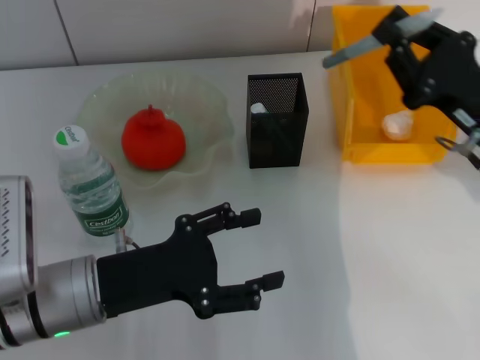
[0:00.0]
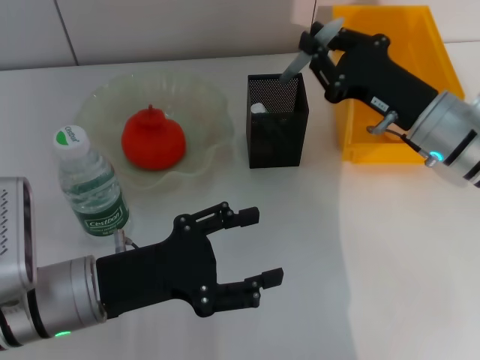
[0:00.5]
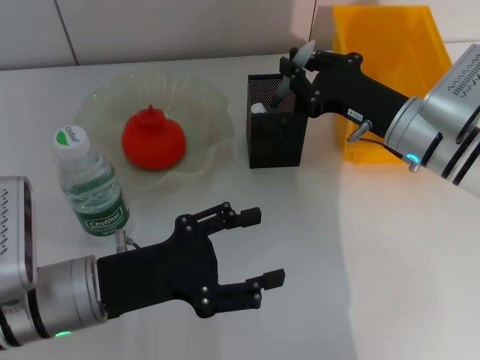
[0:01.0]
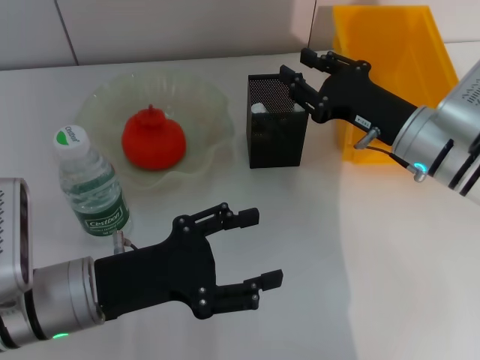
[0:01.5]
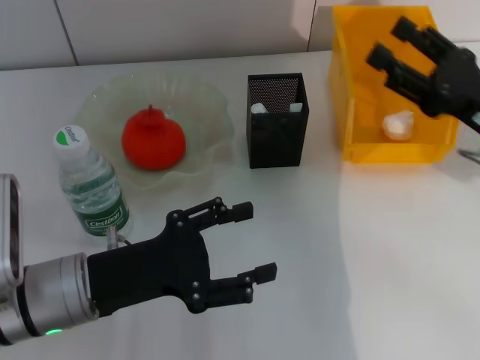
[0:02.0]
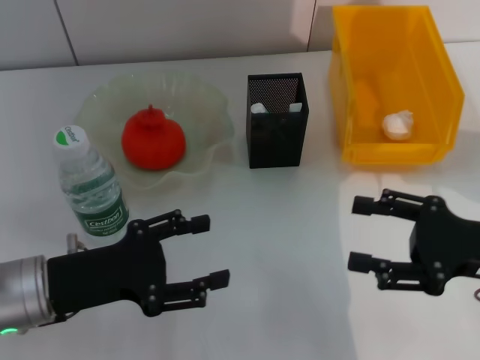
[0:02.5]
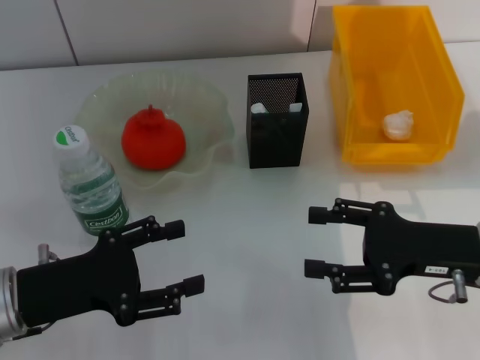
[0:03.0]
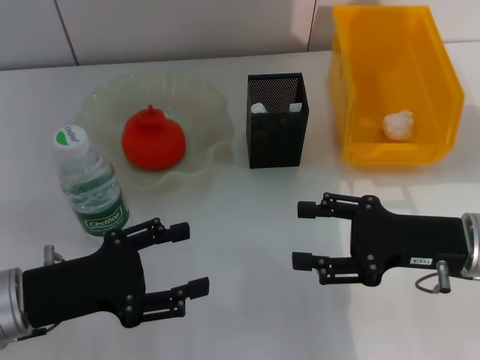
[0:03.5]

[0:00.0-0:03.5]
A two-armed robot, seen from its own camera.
0:00.0 to 0:02.0: The right gripper moves some 5 cm to the left and comes back, and opens.
0:02.0 to 0:03.5: The right gripper ends up roughly 5 cm from where it was; the left gripper is displaced to the left by some 5 cm.

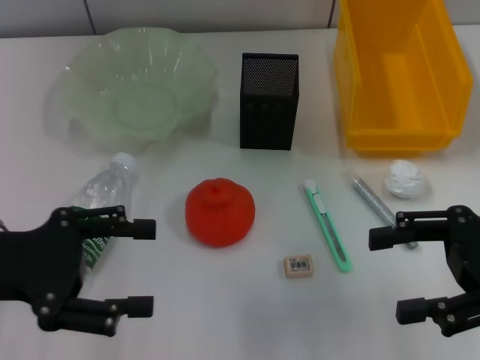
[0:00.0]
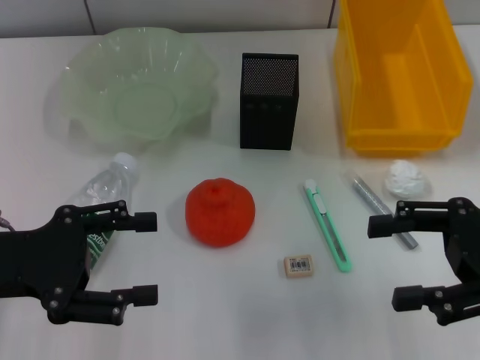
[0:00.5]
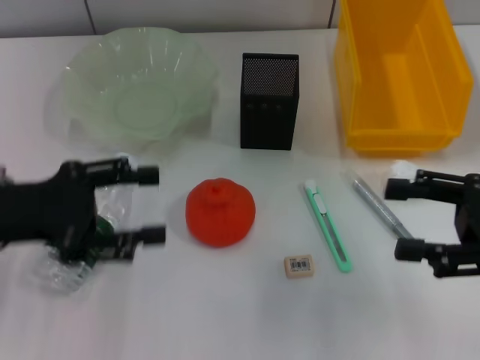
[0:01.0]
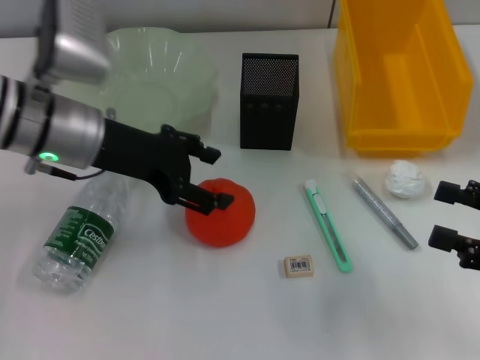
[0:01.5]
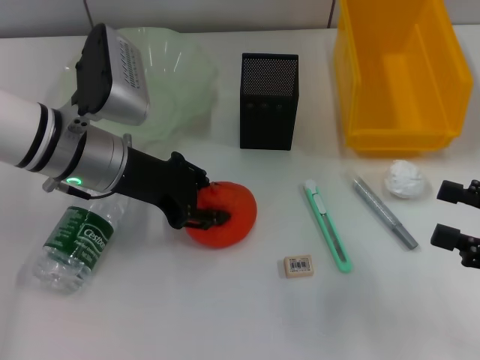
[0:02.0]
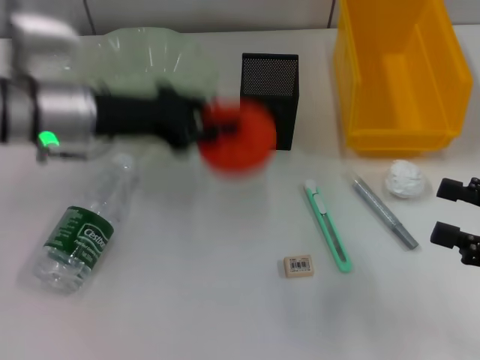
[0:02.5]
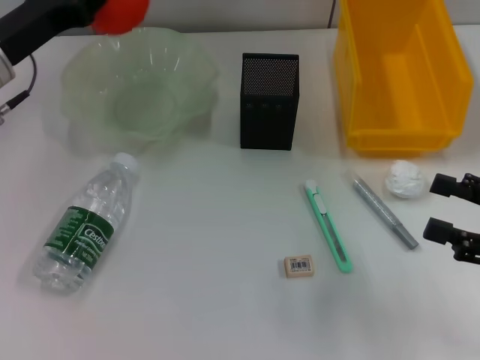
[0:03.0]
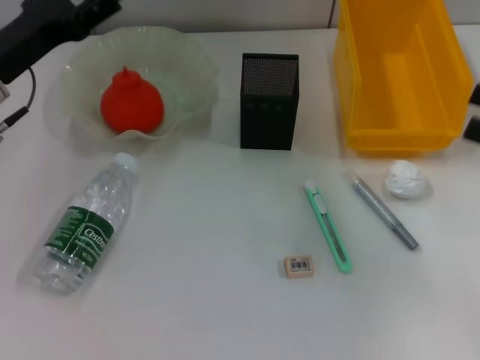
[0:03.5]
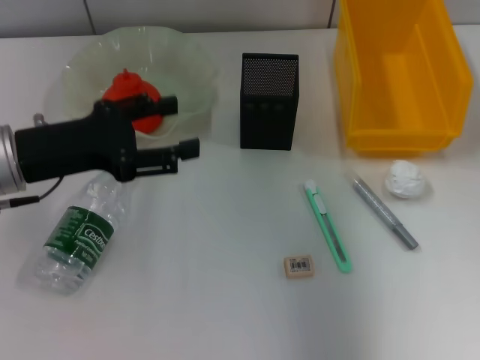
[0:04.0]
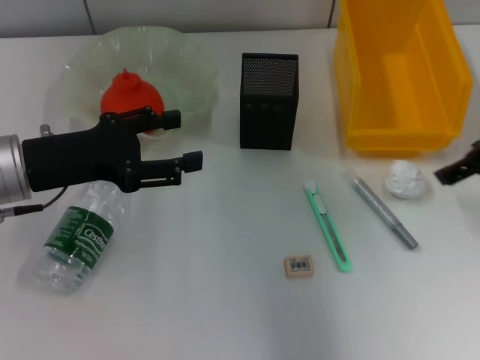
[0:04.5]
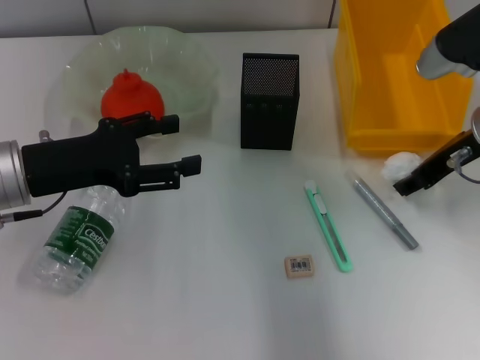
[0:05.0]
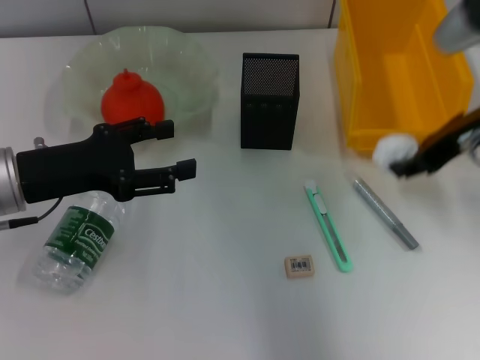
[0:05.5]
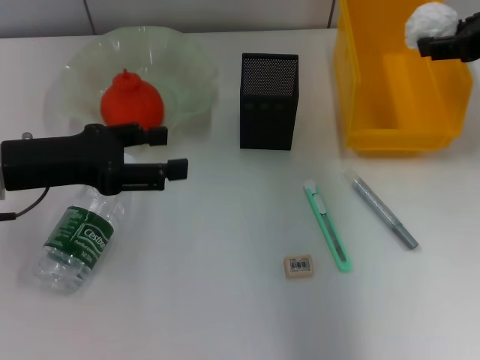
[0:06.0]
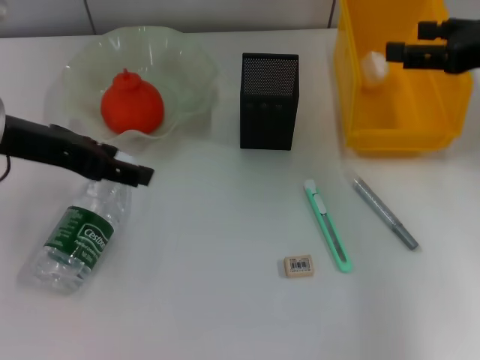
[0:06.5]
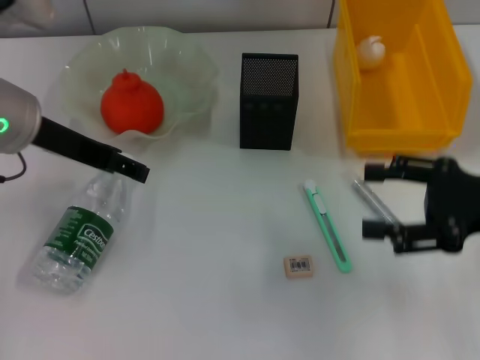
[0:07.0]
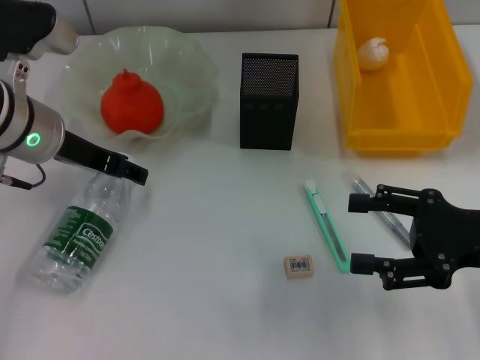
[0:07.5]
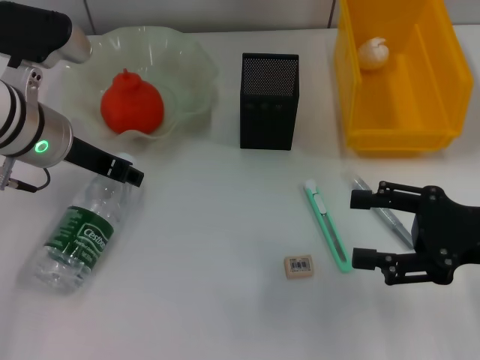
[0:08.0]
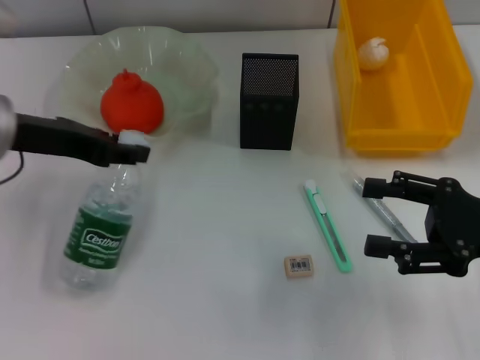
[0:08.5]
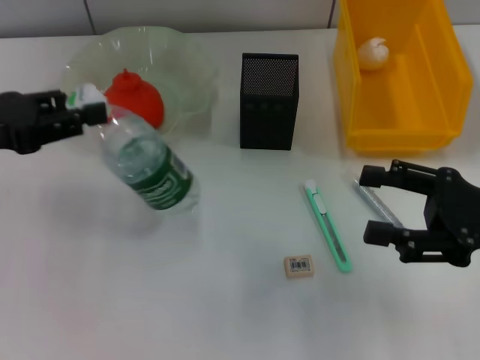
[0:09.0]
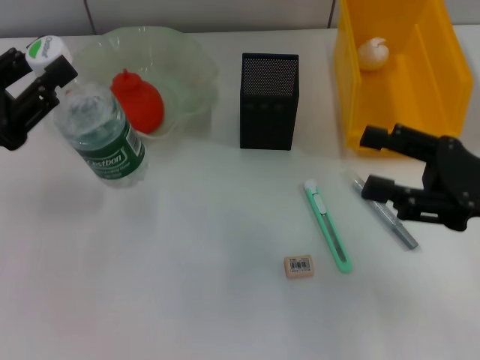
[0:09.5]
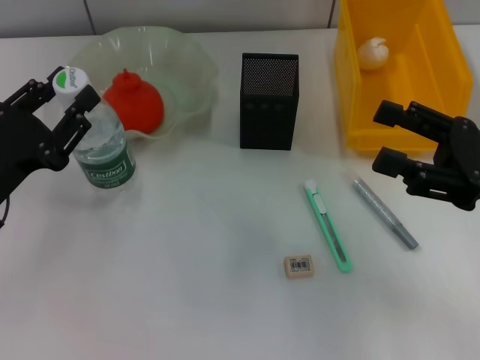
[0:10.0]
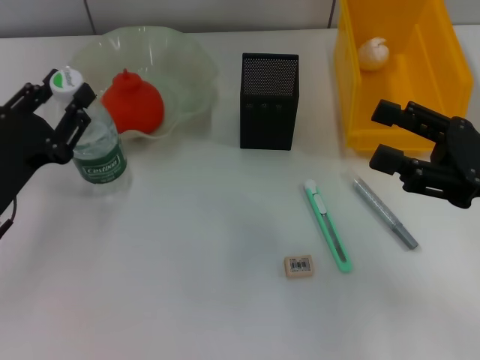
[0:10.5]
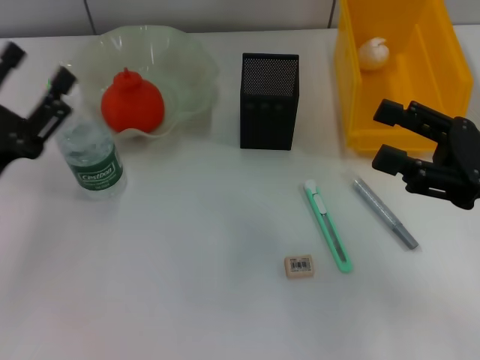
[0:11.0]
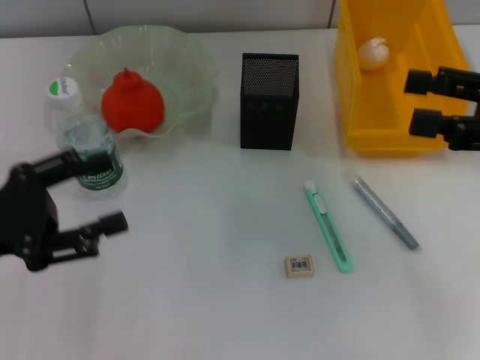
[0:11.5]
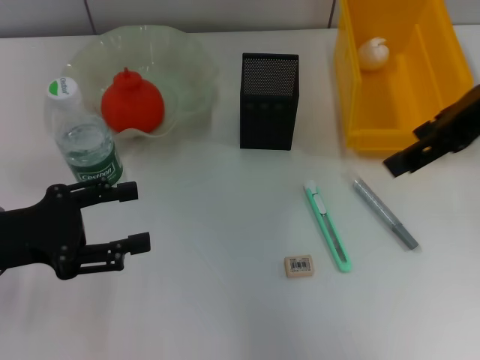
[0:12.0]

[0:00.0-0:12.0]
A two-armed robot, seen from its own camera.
Step, 0:00.0 to 0:02.0: Grab the orange with the left hand.
Step, 0:02.5 to 0:03.0: Place the orange into the fruit bowl with the left hand.
Step, 0:03.5 to 0:05.0: Grab the paper ball with the right hand.
Step, 0:05.5 to 0:06.0: Place the paper ball into the trash can with the right hand.
Step, 0:06.5 to 0:08.0: Grab the water bottle with the left hand.
Step, 0:08.5 to 0:10.5: Place the water bottle on the table with the left hand.
0:00.0 to 0:02.0: The right gripper shifts some 5 cm to the right. The left gripper moves forward and to the right, about 15 cm.
0:02.0 to 0:04.0: The right gripper is displaced upward and forward by roughly 20 cm. Meanwhile the left gripper travels to the left by approximately 10 cm, and closes and opens again.
0:04.0 to 0:06.0: The right gripper shifts some 10 cm forward, goes downward and returns, some 15 cm each way, and closes up.
0:06.0 to 0:08.0: The left gripper heads forward and to the right, covering approximately 10 cm. Meanwhile the right gripper is displaced downward and backward by approximately 20 cm, and opens its fingers.
0:08.0 to 0:10.0: The left gripper heads backward, to the left and downward, covering approximately 15 cm, and closes up.
0:10.0 to 0:12.0: The right gripper shifts approximately 15 cm upward and forward; the left gripper opens.

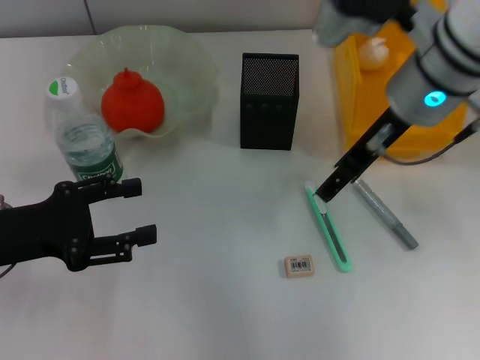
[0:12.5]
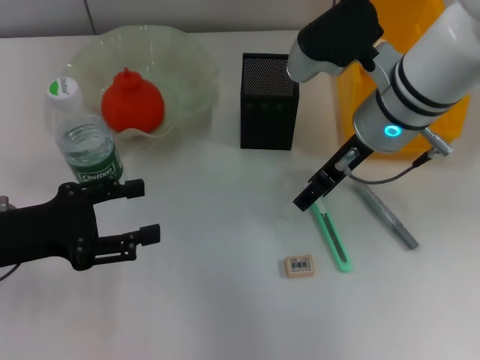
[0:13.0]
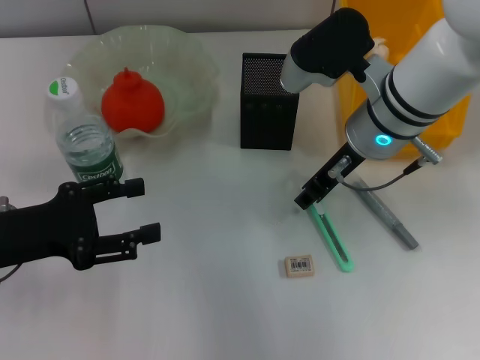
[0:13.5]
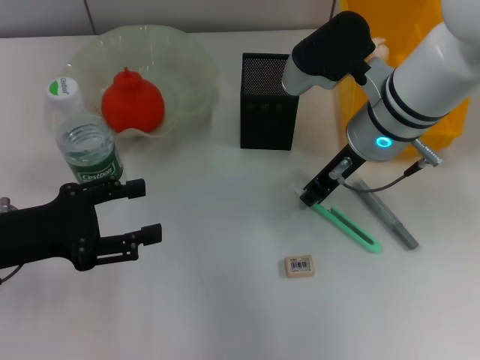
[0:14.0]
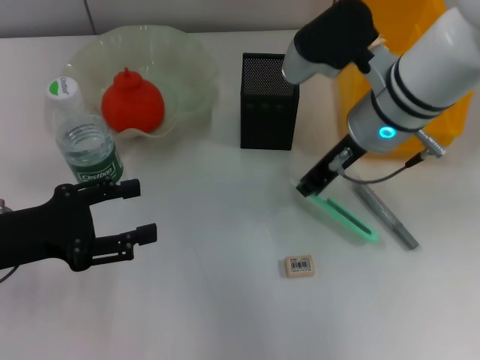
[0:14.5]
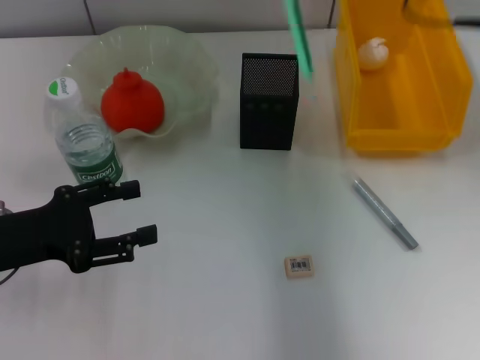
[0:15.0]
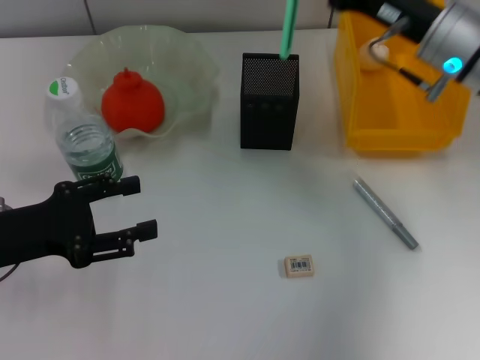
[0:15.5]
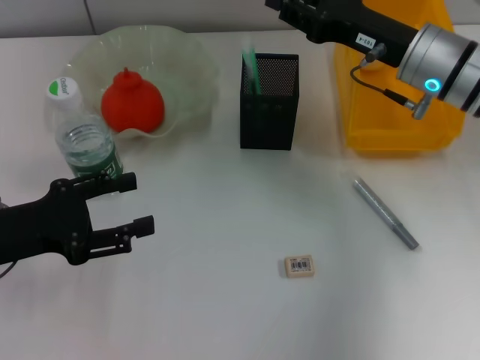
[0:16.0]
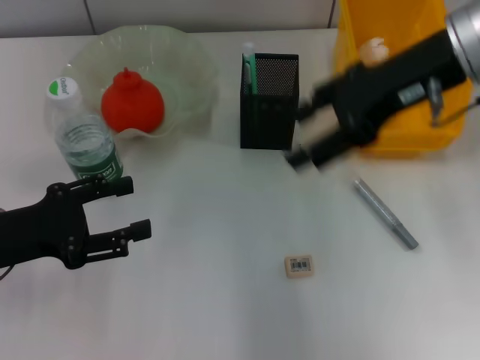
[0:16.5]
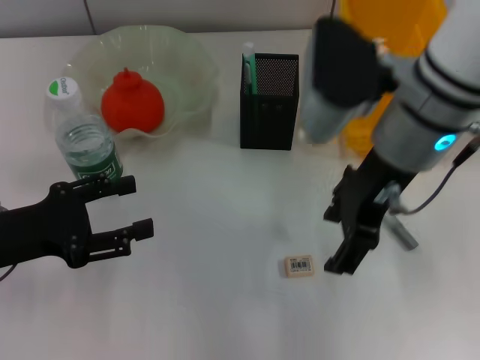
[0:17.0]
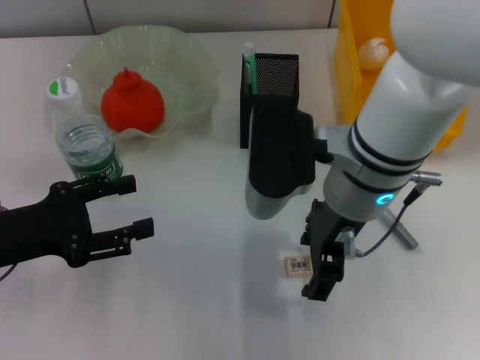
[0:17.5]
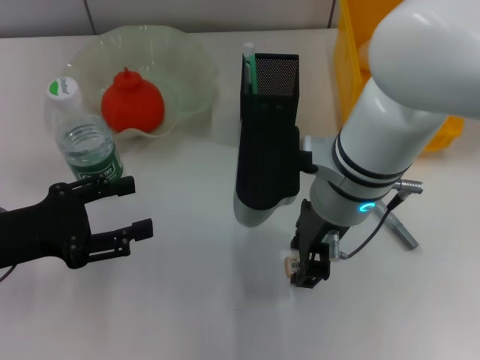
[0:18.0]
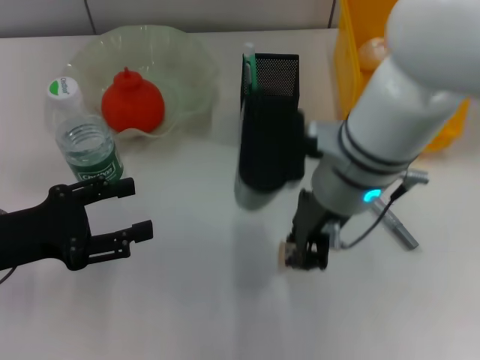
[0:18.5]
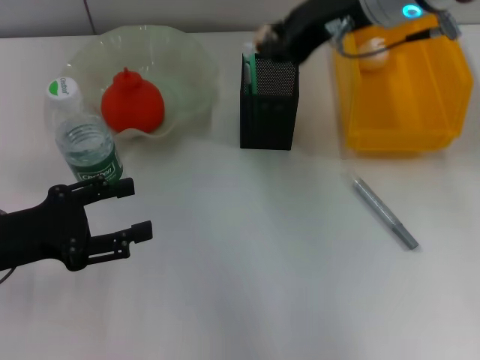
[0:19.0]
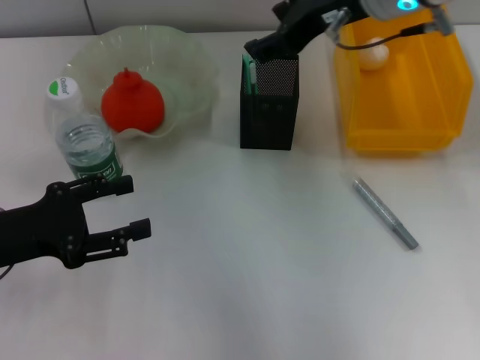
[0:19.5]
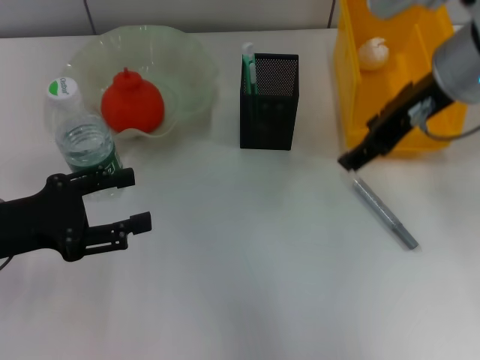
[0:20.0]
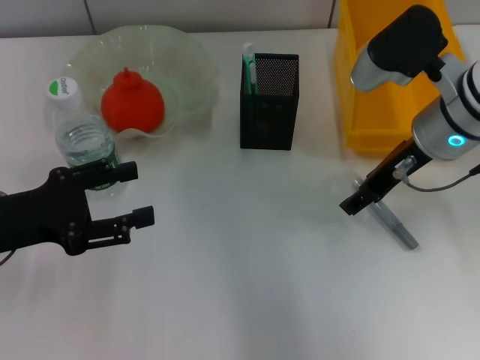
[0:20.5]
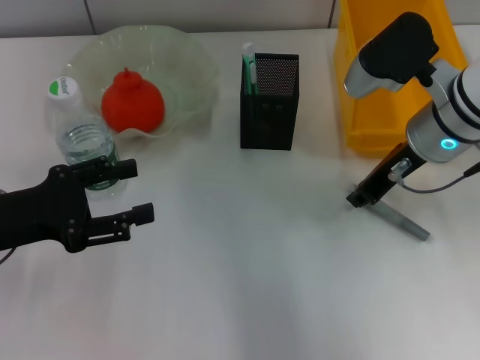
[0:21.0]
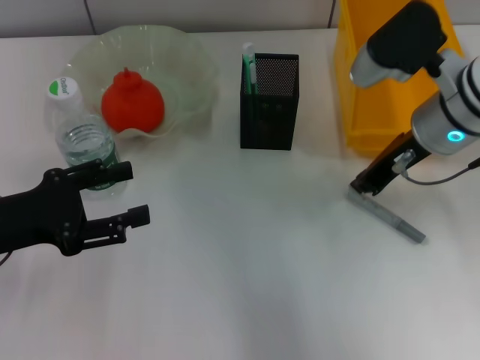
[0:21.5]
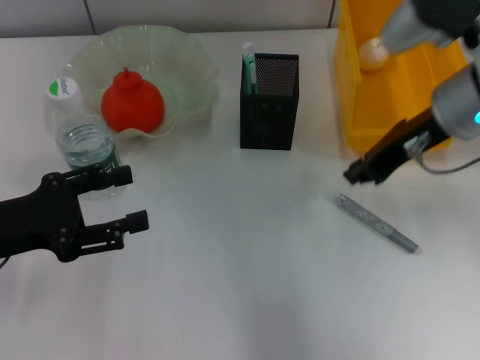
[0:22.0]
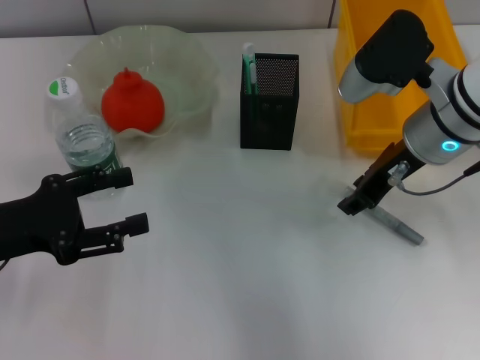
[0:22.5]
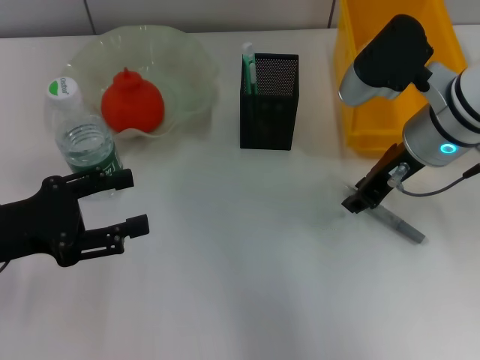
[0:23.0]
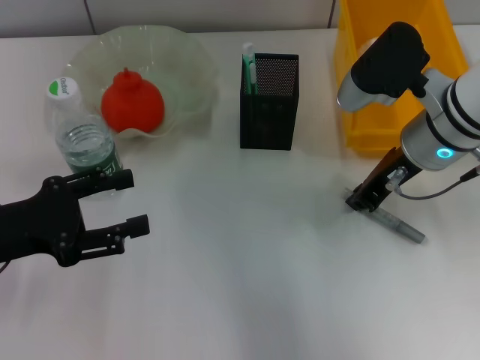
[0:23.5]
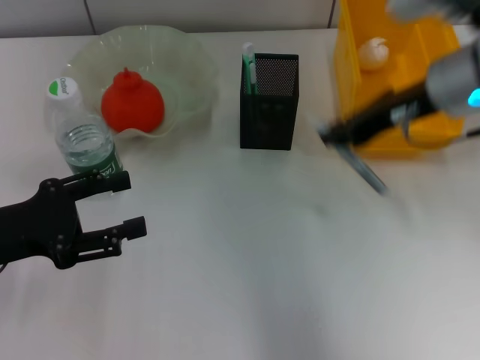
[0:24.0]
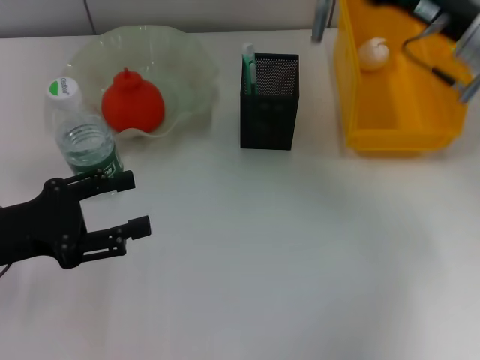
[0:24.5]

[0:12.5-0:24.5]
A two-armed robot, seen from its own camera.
Step, 0:14.5 to 0:16.0: Place the blue utility knife into the pen holder with the right hand.
Step, 0:16.5 to 0:18.0: Grab the eraser with the right hand.
Step, 0:18.5 to 0:19.5: Put the eraser into the pen holder with the right hand.
Step, 0:20.0 to 0:23.5: Grab the gray glue with the right hand.
0:12.5 to 0:14.5: The right gripper ends up approximately 5 cm from where it was, and closes.
0:14.5 to 0:16.5: The right gripper goes up and down, about 15 cm each way, reversing 2 times, and opens its fingers.
0:16.5 to 0:18.5: The right gripper shifts roughly 15 cm to the left and downward, and closes.
0:18.5 to 0:20.5: The right gripper travels to the right and forward by about 10 cm, moves roughly 10 cm upward and comes back, and opens its fingers.
0:20.5 to 0:22.5: The right gripper closes up.
0:22.5 to 0:24.5: The right gripper goes some 5 cm to the right.
